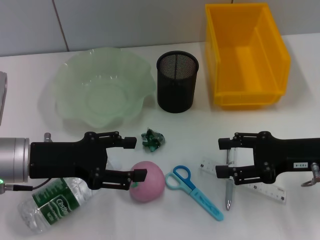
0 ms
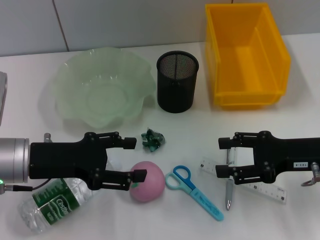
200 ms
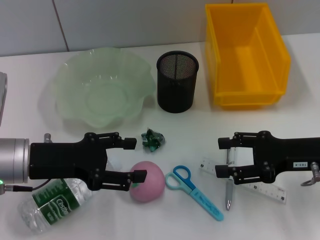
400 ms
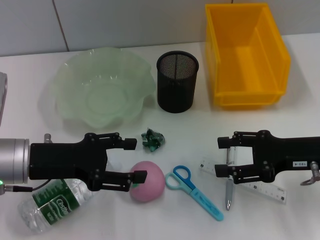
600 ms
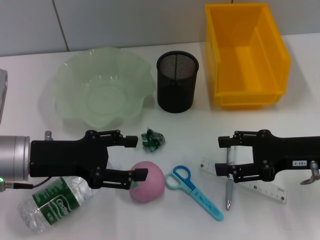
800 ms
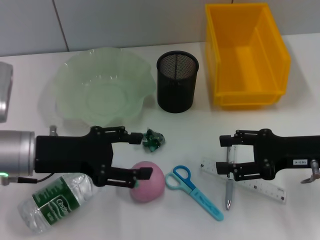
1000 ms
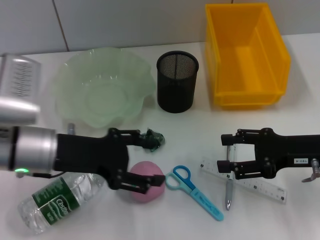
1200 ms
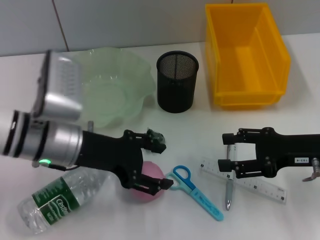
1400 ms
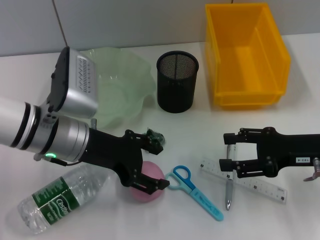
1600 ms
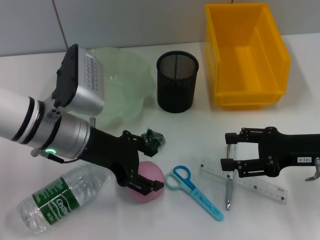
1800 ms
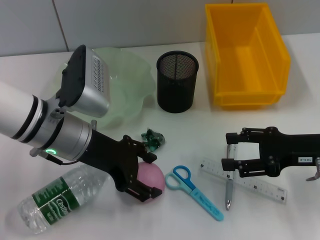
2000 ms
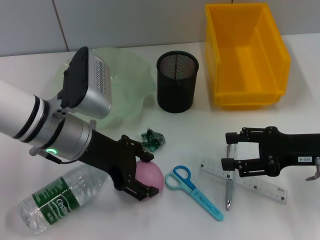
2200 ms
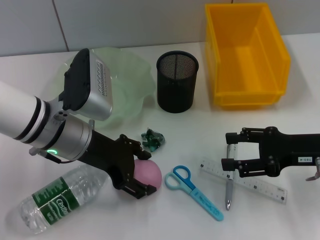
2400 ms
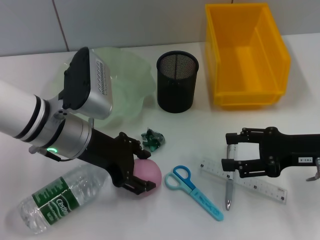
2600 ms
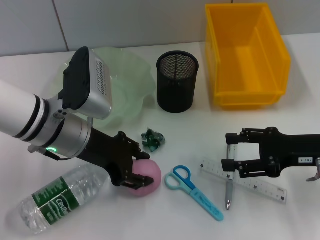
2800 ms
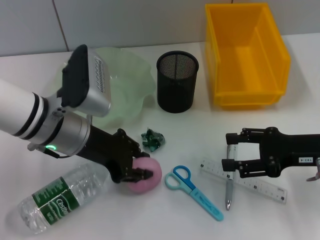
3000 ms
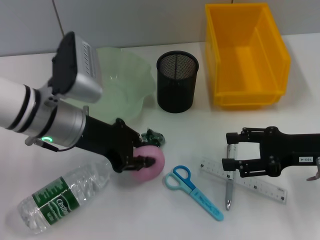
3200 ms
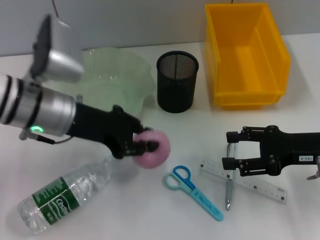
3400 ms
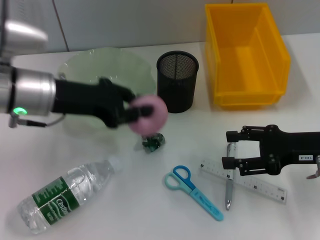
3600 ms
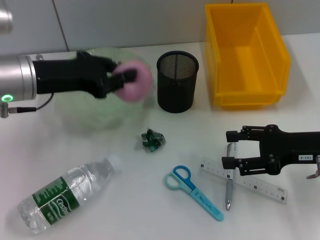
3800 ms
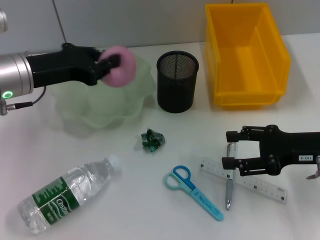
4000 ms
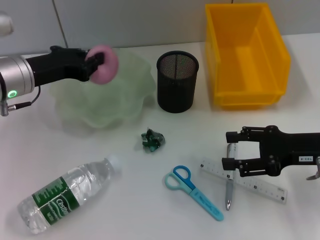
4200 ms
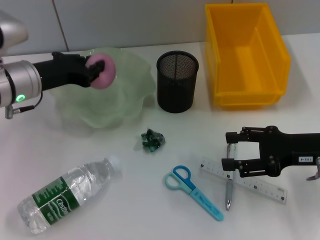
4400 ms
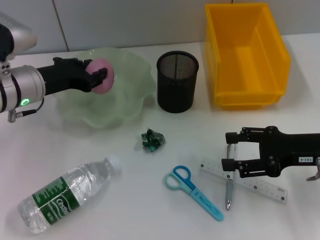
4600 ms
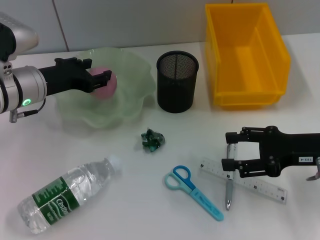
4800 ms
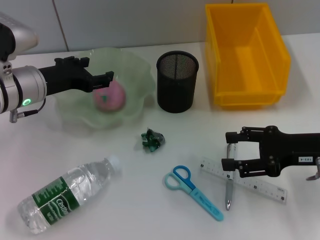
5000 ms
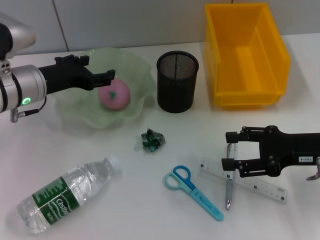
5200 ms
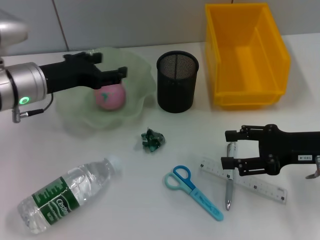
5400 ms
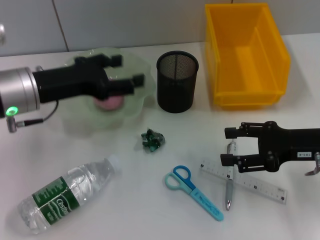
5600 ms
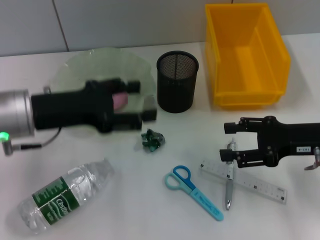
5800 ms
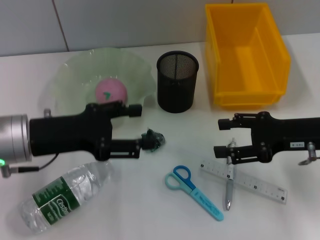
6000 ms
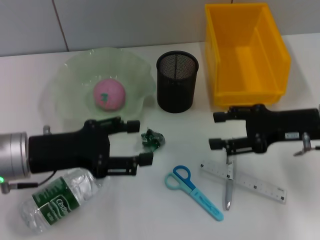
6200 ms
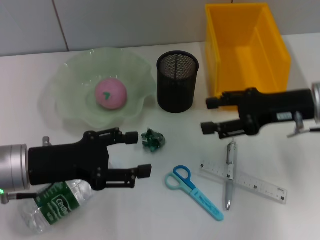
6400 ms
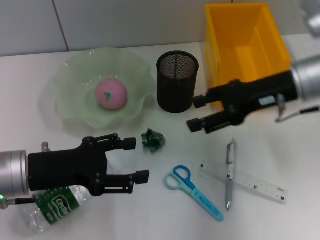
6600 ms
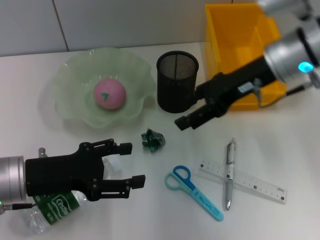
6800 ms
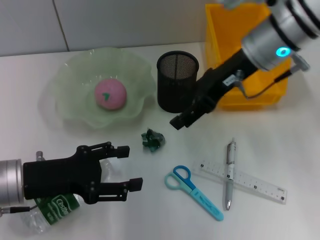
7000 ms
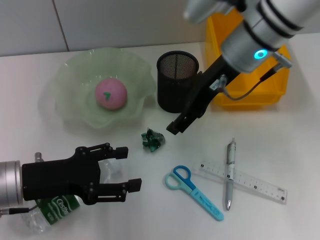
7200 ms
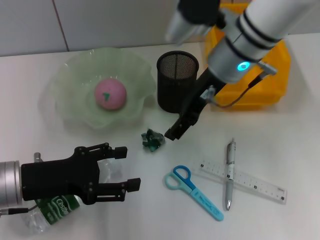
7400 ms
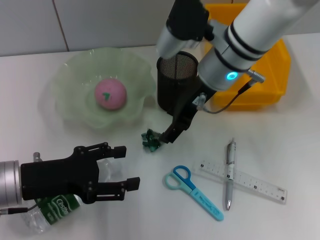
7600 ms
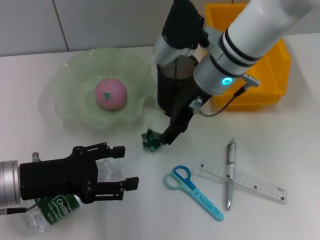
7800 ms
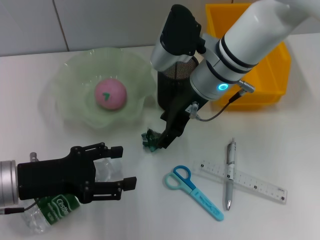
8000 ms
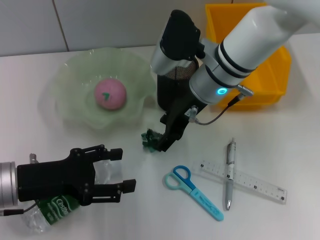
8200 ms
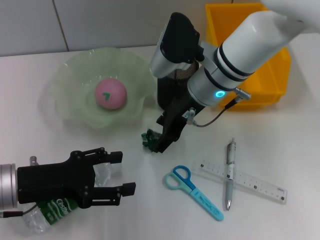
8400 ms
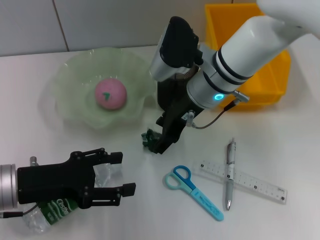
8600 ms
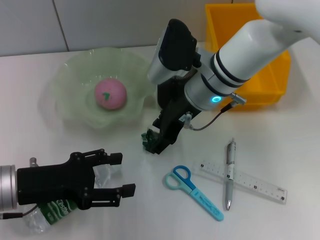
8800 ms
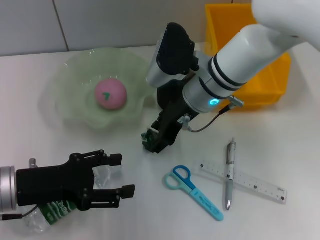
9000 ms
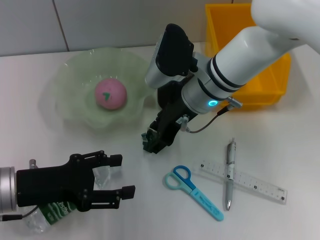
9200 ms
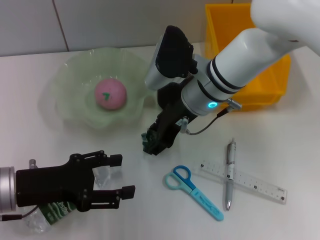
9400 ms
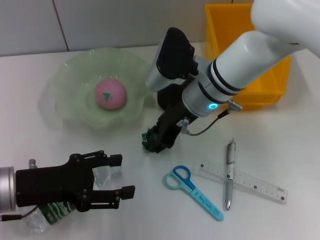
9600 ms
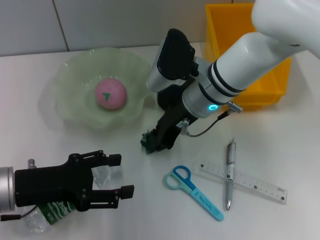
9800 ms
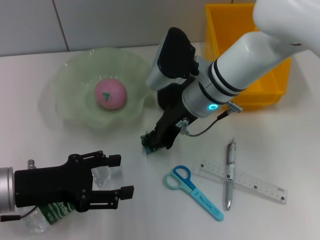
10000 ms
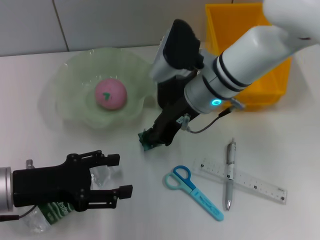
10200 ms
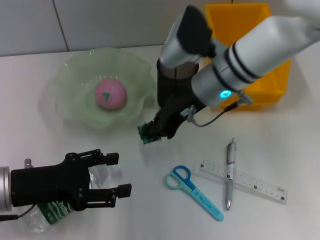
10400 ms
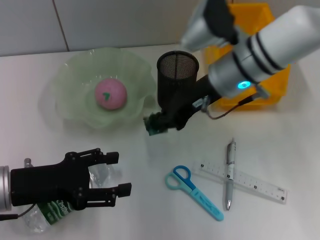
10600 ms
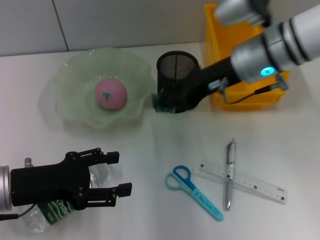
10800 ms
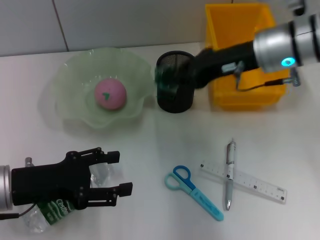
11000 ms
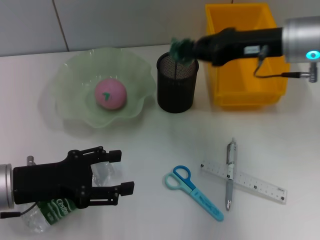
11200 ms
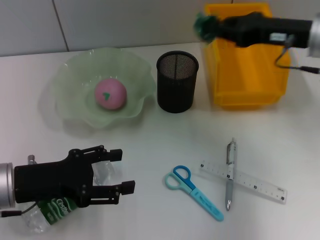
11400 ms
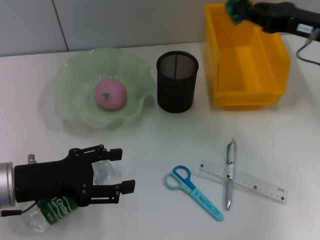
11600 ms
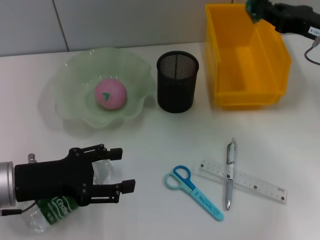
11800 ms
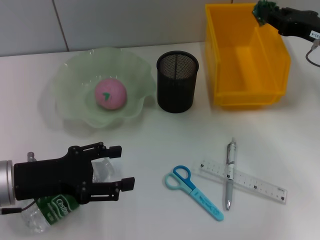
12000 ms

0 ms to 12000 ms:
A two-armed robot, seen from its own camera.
Step, 0 ms to 2800 ms: Grab the peach with the left hand.
Step, 3000 ms to 5200 ms: Place the peach into the fruit bowl with the left hand.
Step, 5400 ms to 10000 ms: Grab the plastic with the right hand.
0 ms to 1600 ms: The left gripper travels to the right by some 5 cm.
1600 ms to 3000 ms: The left gripper closes up.
3000 ms to 4400 ms: The left gripper heads to the left and forward, covering roughly 10 cm, and closes.
4400 ms to 6000 ms: The left gripper shifts approximately 10 cm backward, and opens up.
6000 ms to 7600 ms: The right gripper is displaced to the left, forward and upward by approximately 20 cm, while the left gripper moves about 5 cm.
7600 ms to 9000 ms: The right gripper moves some 5 cm.
9000 ms to 10400 ms: The right gripper closes.
10400 ms to 12000 ms: The right gripper goes roughly 20 cm to the right.

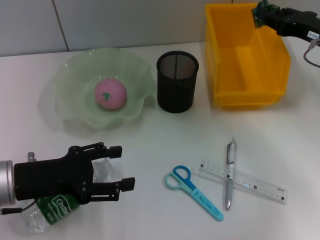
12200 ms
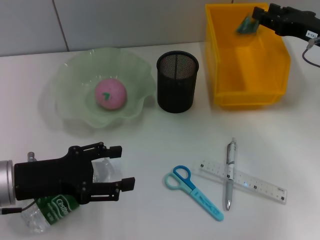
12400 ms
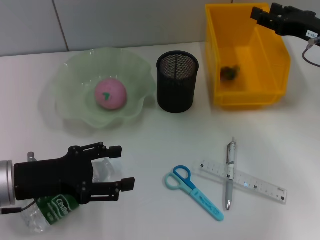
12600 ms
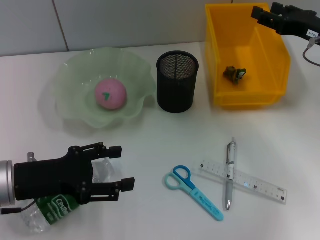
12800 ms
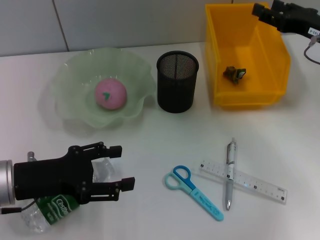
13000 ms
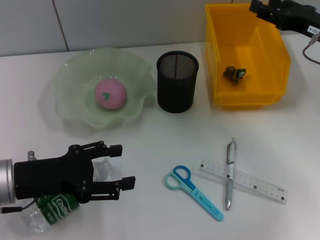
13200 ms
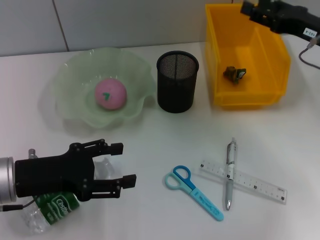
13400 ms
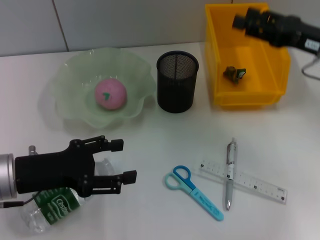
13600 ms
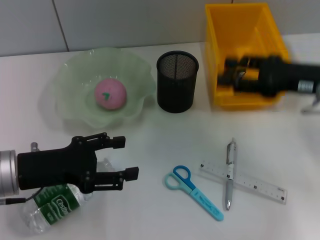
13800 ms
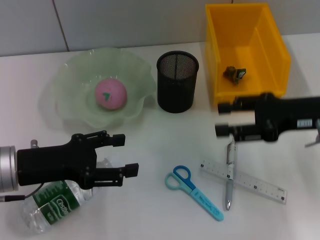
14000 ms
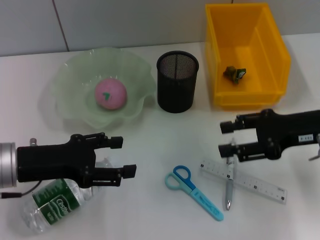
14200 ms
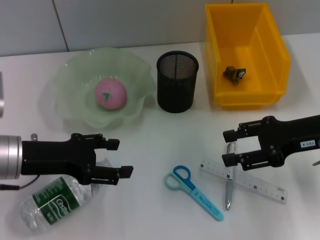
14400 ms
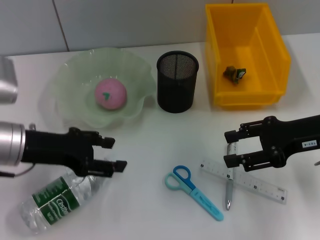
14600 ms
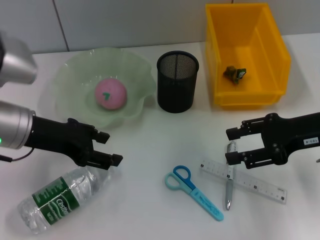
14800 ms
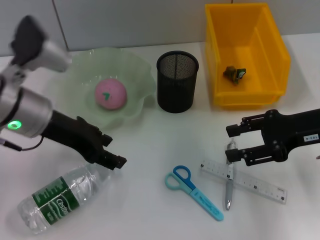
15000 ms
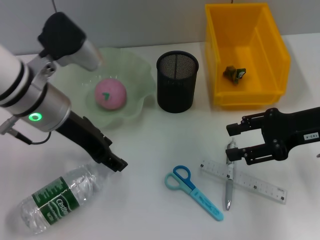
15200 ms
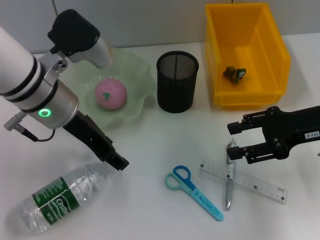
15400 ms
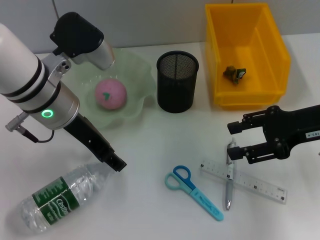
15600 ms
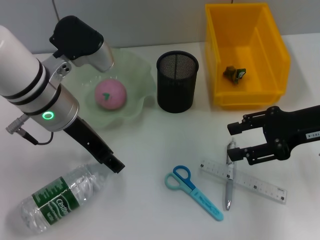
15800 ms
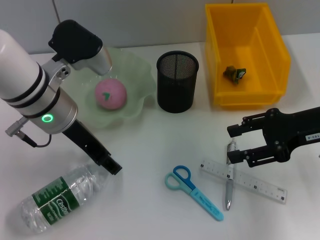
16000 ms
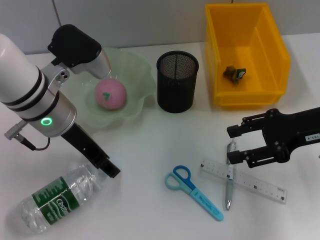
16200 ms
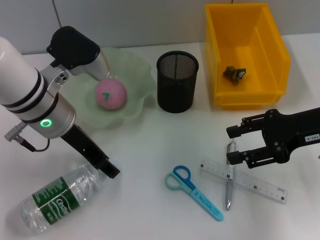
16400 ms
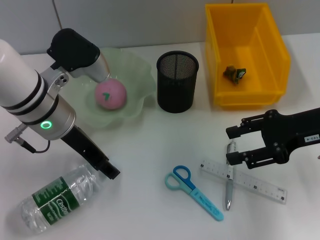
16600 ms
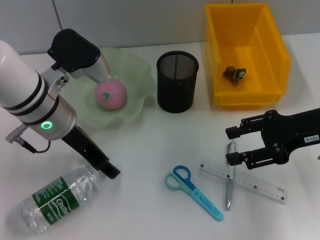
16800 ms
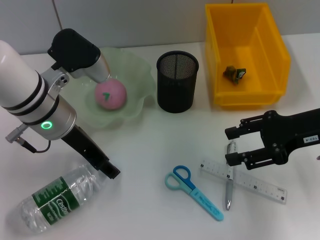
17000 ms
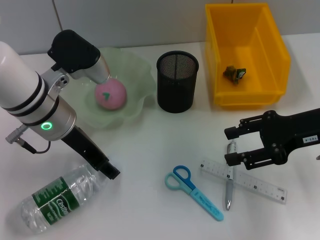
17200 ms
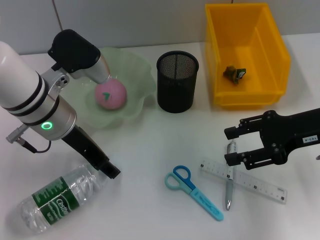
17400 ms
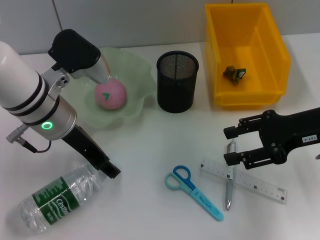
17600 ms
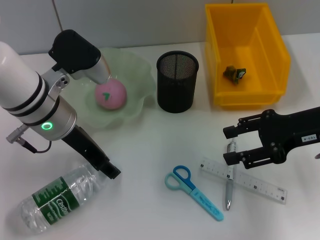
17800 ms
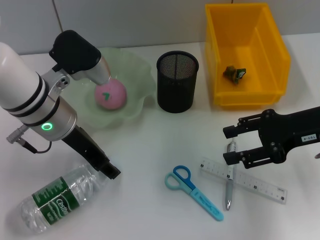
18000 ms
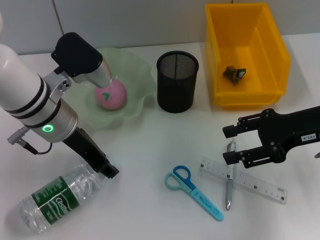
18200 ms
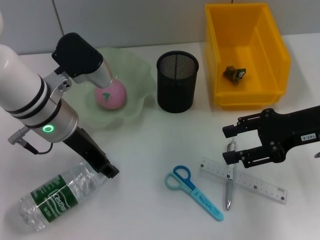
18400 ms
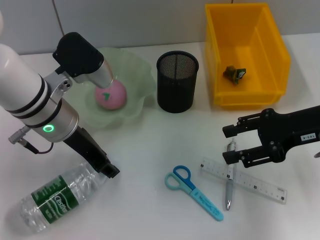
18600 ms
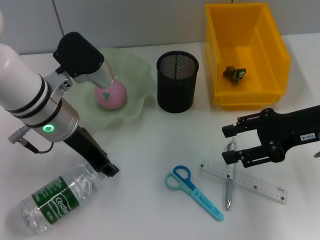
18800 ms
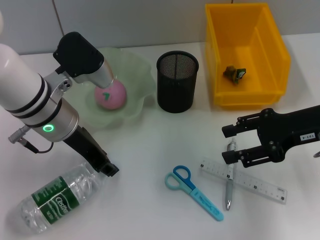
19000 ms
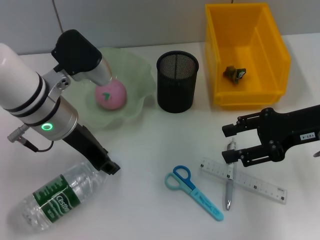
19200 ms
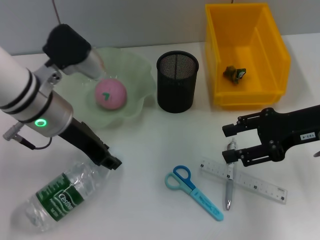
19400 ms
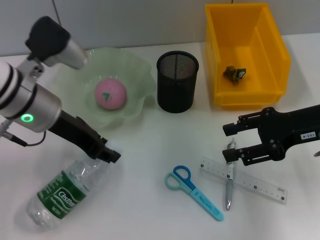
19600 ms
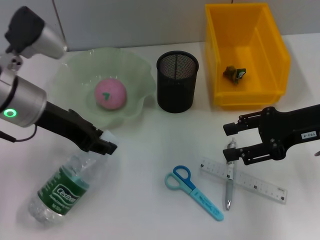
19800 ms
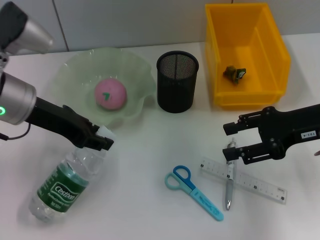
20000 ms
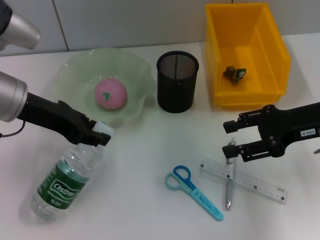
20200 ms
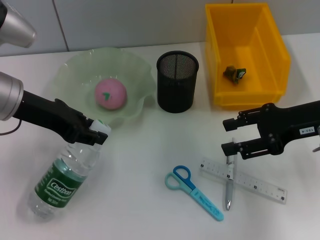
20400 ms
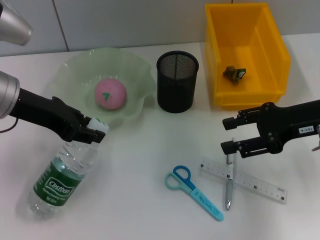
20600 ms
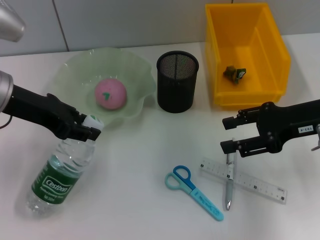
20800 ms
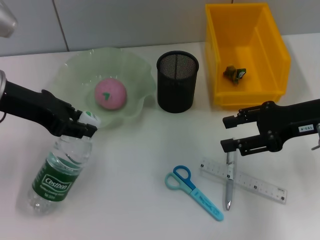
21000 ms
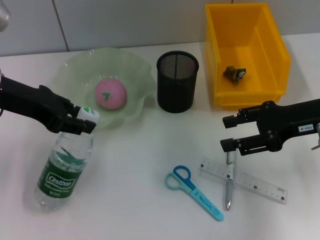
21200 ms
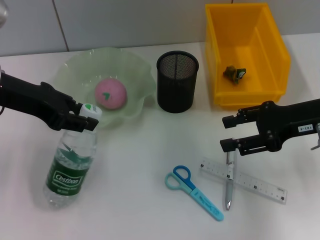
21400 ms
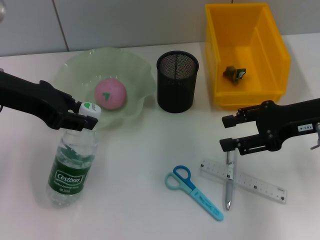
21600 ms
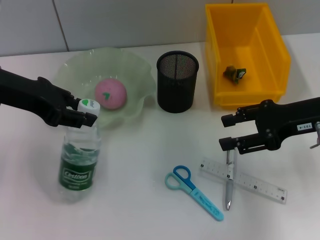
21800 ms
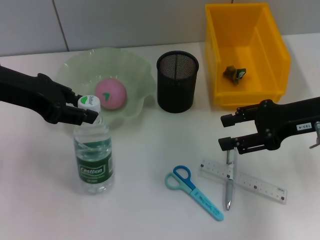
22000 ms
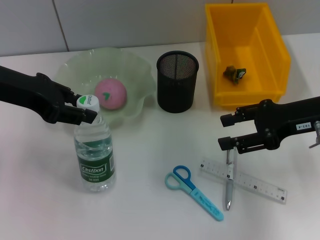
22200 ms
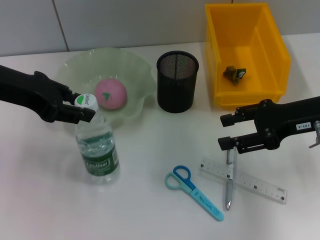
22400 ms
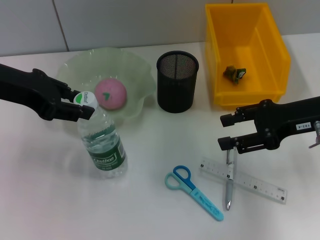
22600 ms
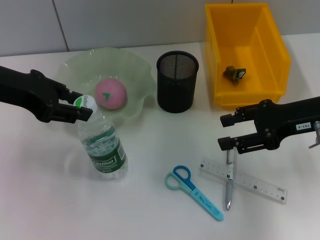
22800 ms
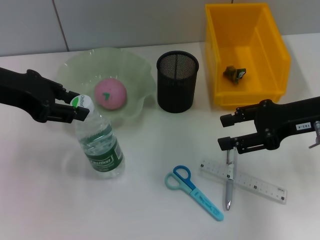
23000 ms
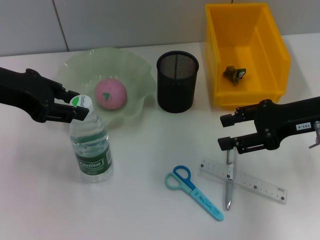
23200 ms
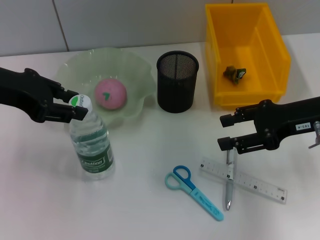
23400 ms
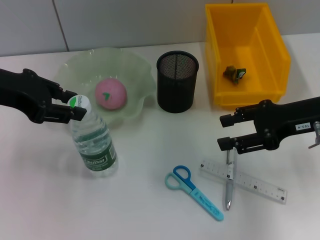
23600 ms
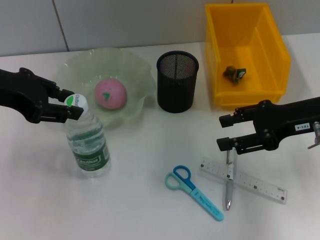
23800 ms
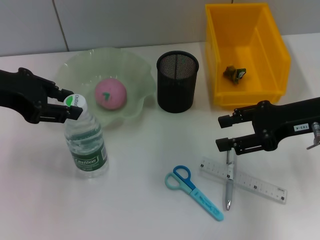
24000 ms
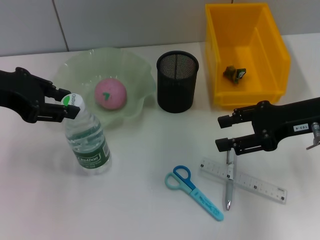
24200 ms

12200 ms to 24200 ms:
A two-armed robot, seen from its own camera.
Step, 13000 ms to 19000 ms: Grab the water bottle with the left hand.
12200 ms to 13800 ms: The right gripper goes some 5 cm backward, and opens.
13800 ms to 15200 ms: The left gripper heads to the right, forward and upward, covering approximately 15 cm.
15200 ms to 16600 ms: The grippers move only a little.
16600 ms to 18200 ms: Neither gripper changes place.
18200 ms to 19800 ms: The left gripper changes place by approximately 5 cm, and closes.
19800 ms to 21200 ms: The left gripper shifts by about 5 cm.
21200 ms to 24200 ms: The grippers stay close to where they were, moving slightly.
